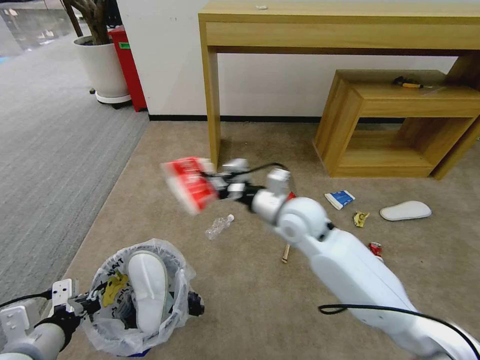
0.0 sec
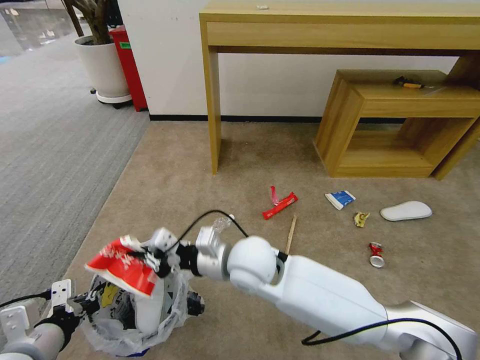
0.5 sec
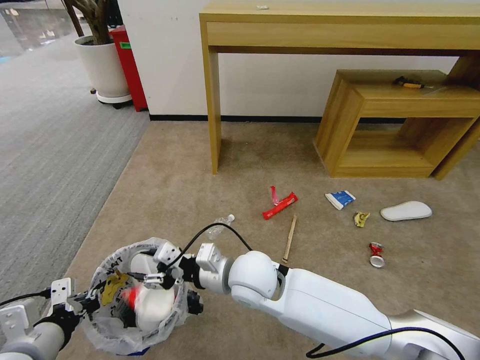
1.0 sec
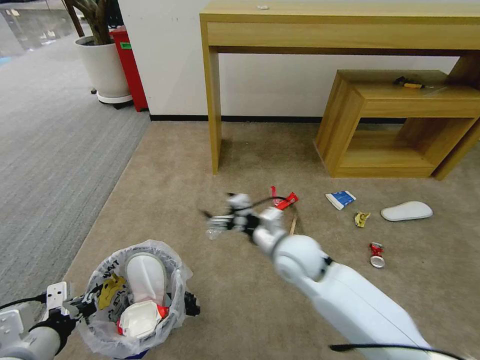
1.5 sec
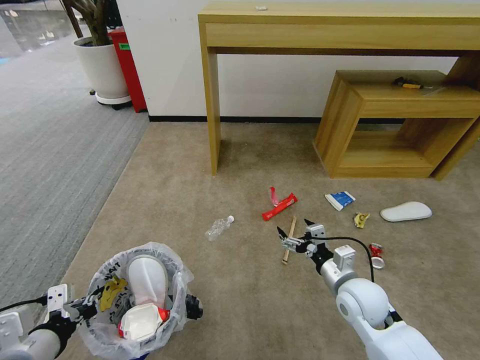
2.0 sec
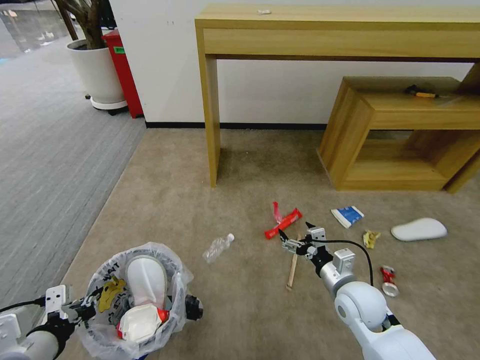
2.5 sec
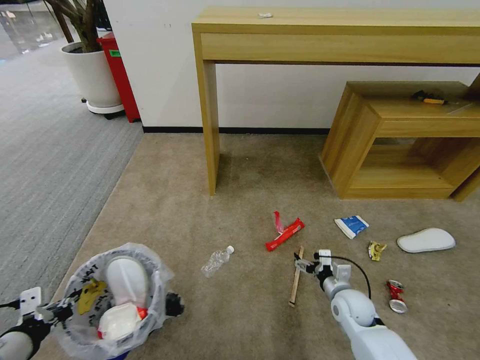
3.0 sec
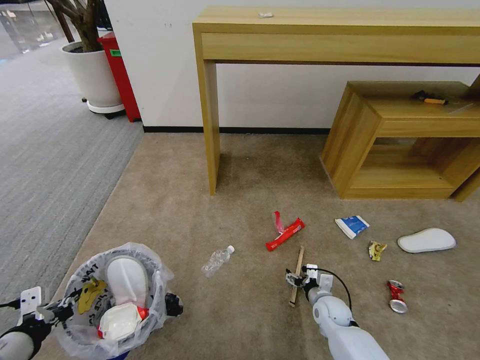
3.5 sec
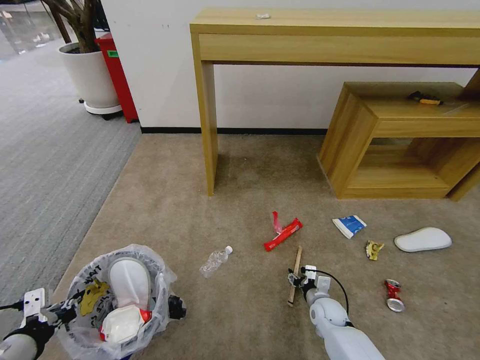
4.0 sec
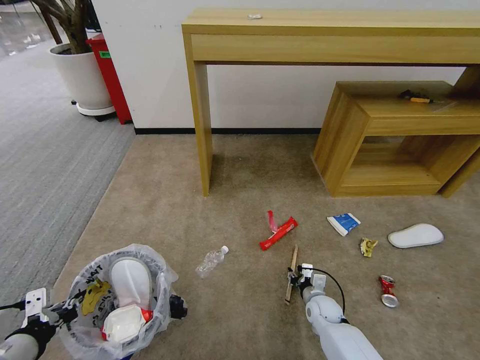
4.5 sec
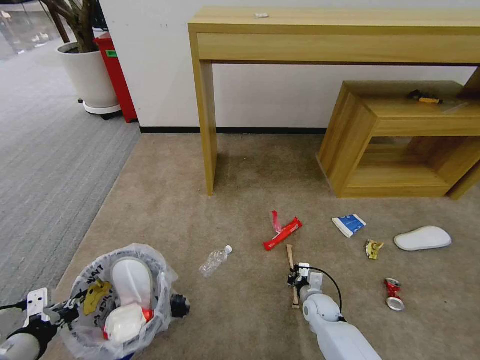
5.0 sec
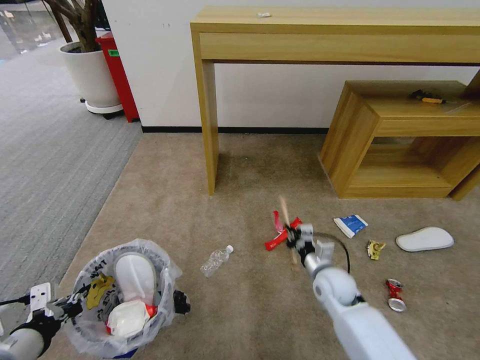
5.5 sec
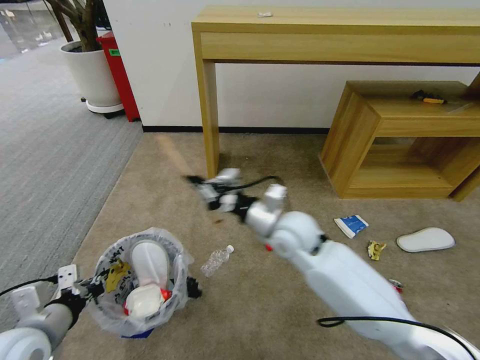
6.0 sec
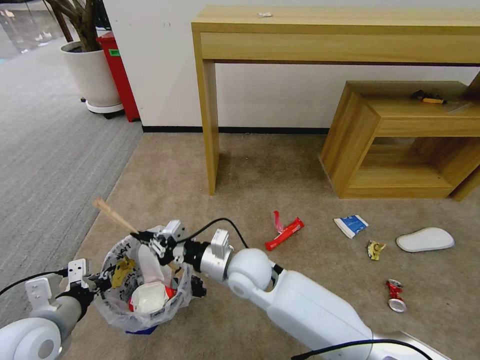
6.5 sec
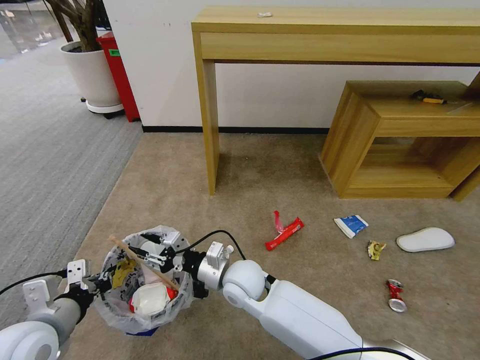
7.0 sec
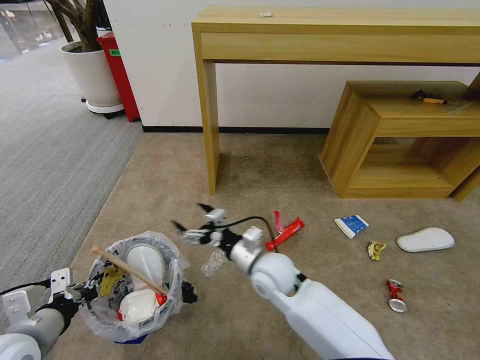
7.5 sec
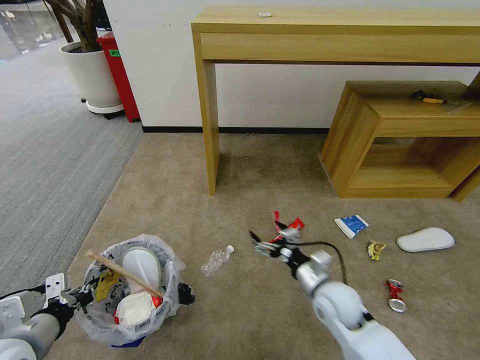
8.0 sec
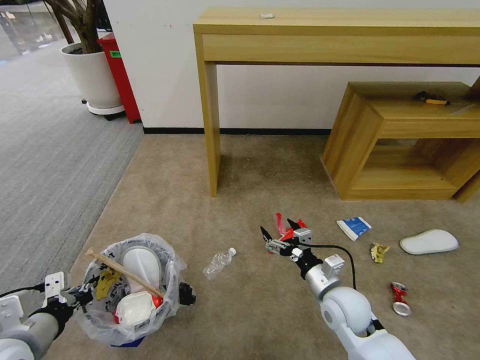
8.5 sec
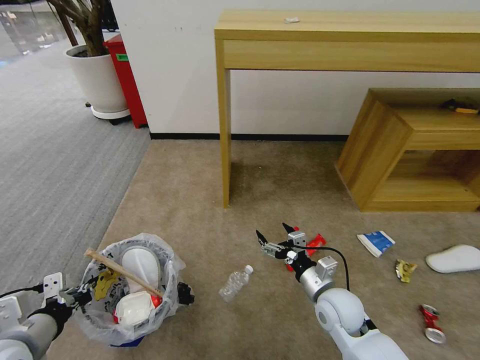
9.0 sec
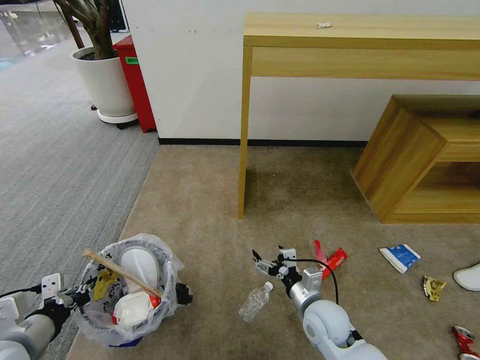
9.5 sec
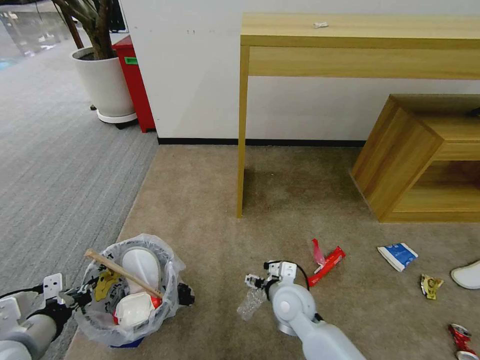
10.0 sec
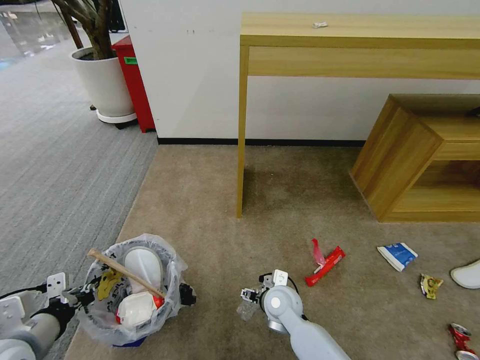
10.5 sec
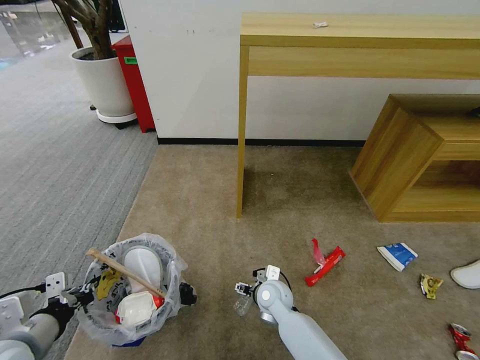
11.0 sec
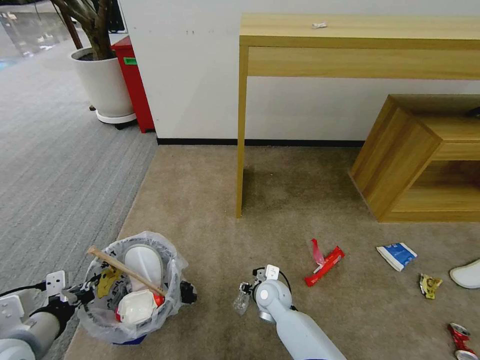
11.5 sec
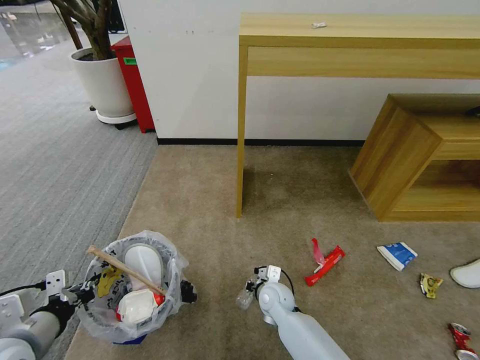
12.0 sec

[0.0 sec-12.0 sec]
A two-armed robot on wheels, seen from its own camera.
Task of the whole recording: Pick up the trash bin and place the garbage on the floor into it.
0.0 sec to 2.0 sec: The right gripper goes about 25 cm to the right, downward and backward, and opens up.
2.0 sec to 4.0 sec: The right gripper is displaced downward by about 20 cm, and closes its fingers.
4.0 sec to 6.0 sec: The left gripper changes place by approximately 5 cm. Meanwhile the right gripper goes some 35 cm upward and to the left, and closes.
6.0 sec to 8.0 sec: The right gripper goes approximately 20 cm downward, backward and to the right, and opens up.
8.0 sec to 10.0 sec: The right gripper travels to the left by some 10 cm.
10.0 sec to 12.0 sec: The right gripper goes approximately 10 cm downward, and closes up.

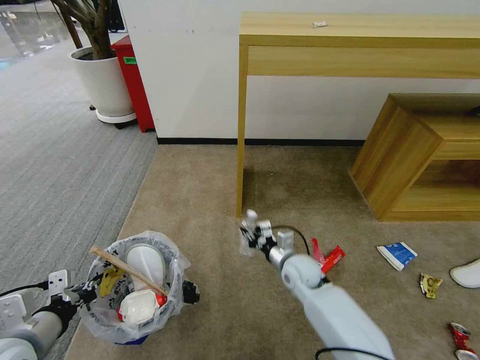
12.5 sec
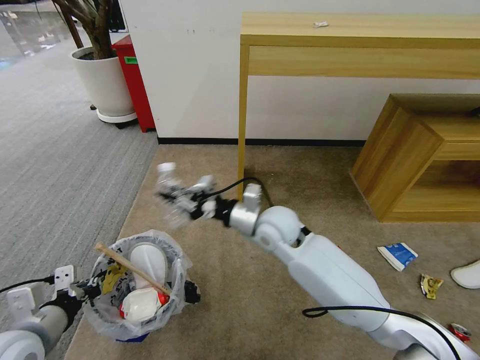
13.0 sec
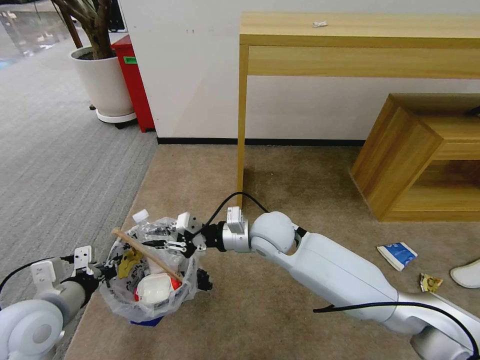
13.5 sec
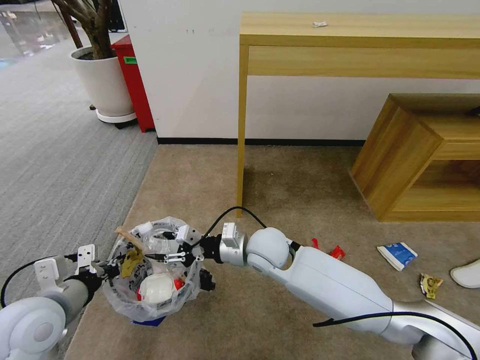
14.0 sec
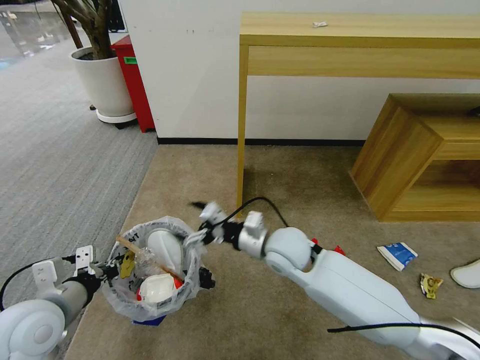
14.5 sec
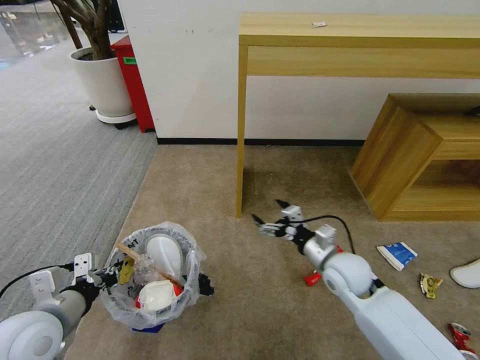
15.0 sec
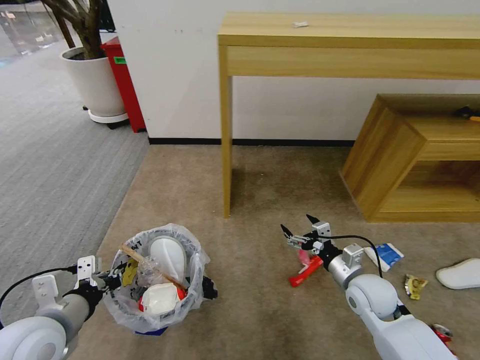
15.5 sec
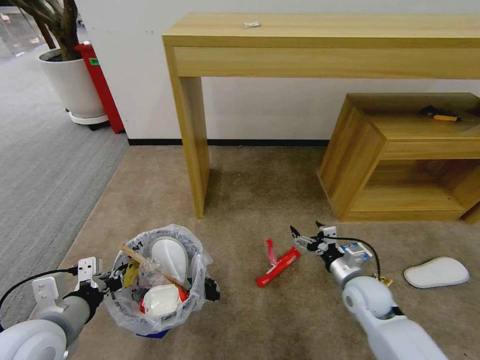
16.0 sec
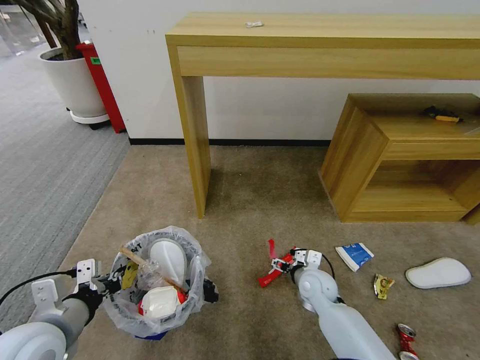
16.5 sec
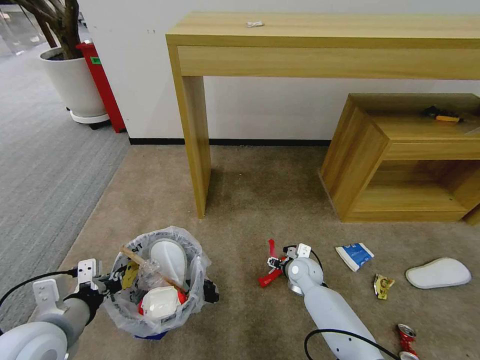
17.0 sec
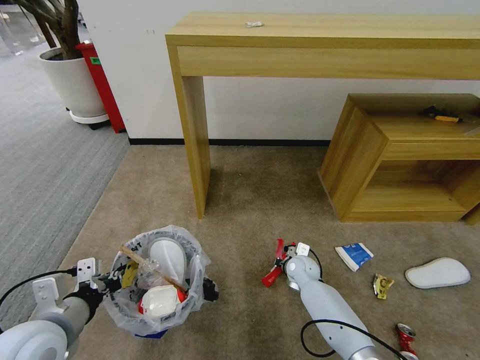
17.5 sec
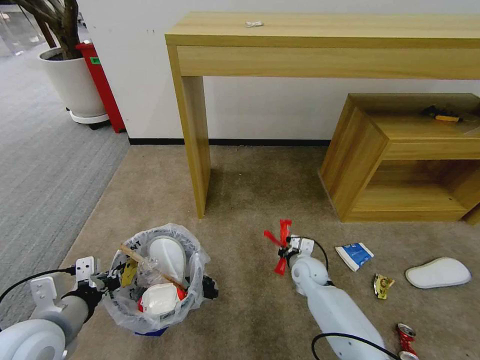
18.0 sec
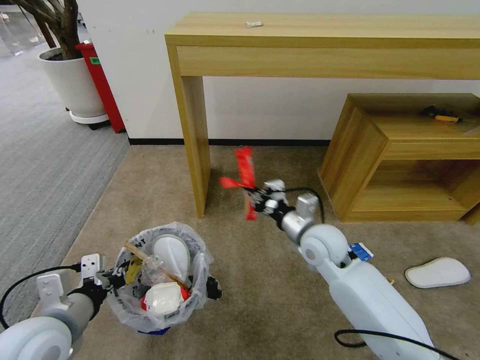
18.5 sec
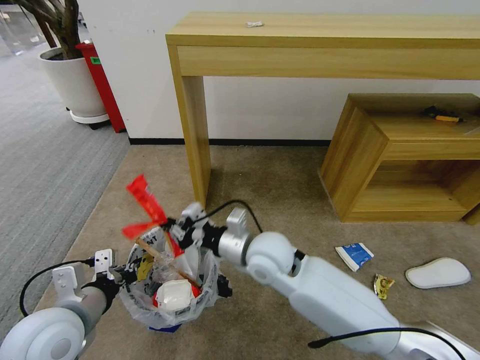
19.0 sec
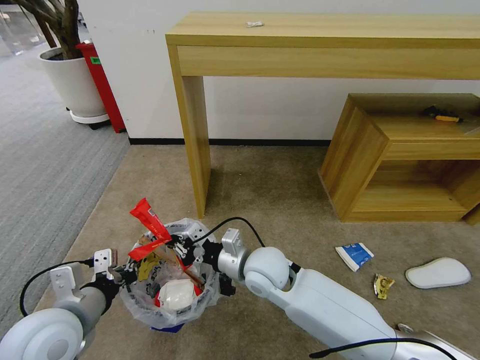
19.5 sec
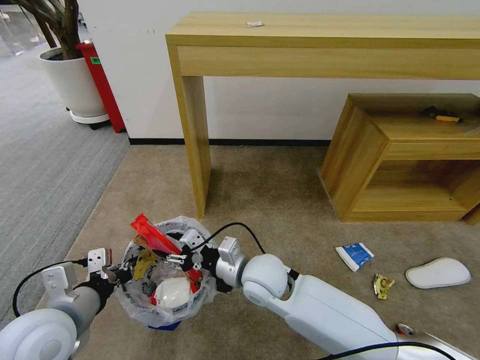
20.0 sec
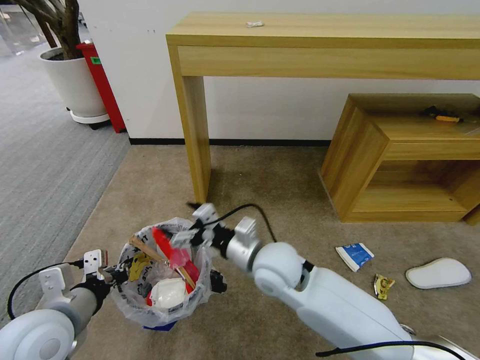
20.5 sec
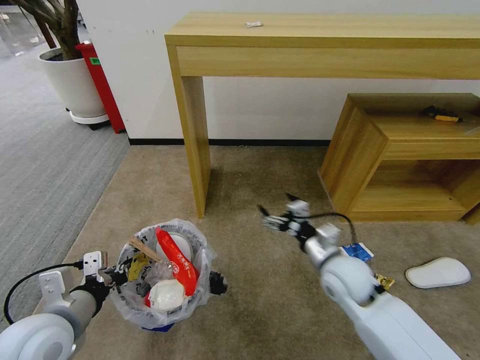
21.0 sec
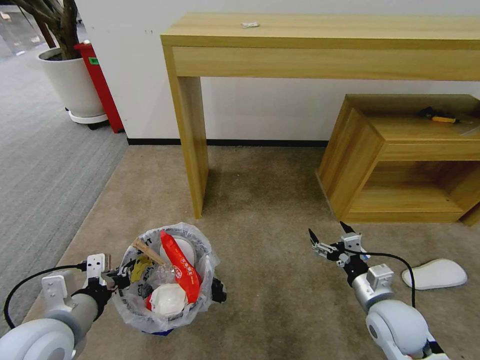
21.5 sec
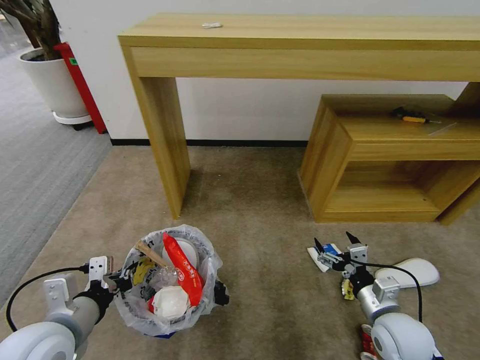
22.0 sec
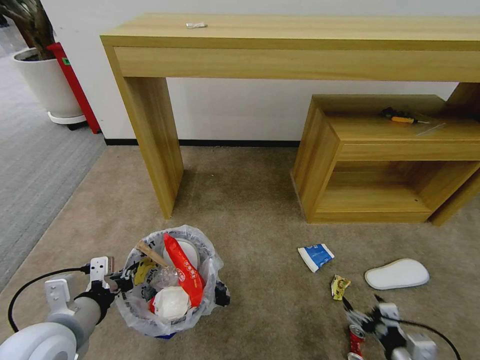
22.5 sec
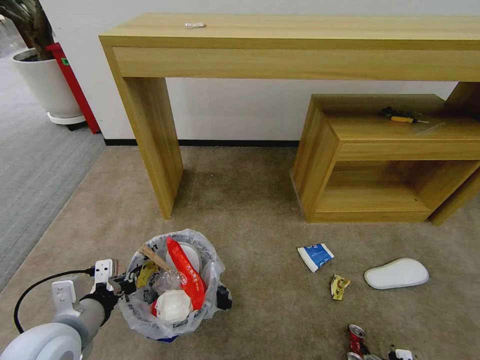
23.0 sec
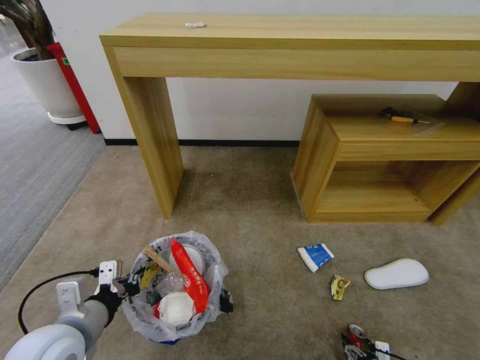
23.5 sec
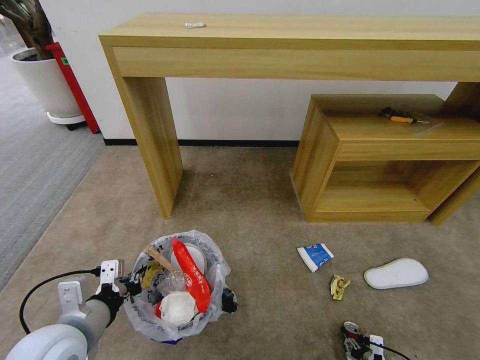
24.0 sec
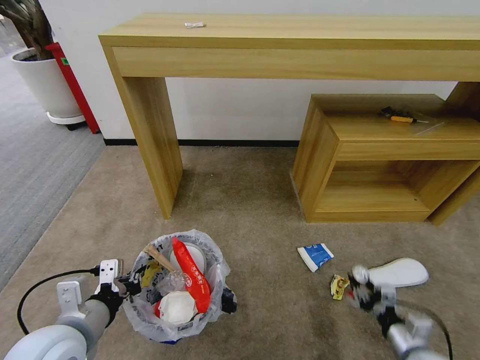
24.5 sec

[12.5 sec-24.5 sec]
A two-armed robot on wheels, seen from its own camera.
Task of the whole recording: Pick up the trash bin and place the garbage on the floor into it.
12.5 sec to 14.5 sec: The right gripper is displaced upward and to the left by some 15 cm, and opens. The left gripper heads forward, covering approximately 5 cm.
14.5 sec to 16.5 sec: The right gripper is displaced downward and to the right by about 20 cm.
16.5 sec to 18.5 sec: The right gripper moves upward, about 15 cm, and closes.
18.5 sec to 20.5 sec: The right gripper moves to the left and backward, approximately 15 cm, and opens up.
20.5 sec to 22.5 sec: The right gripper shifts roughly 40 cm to the right, backward and downward.
22.5 sec to 24.5 sec: The right gripper moves forward, some 5 cm, goes downward and returns, about 15 cm each way, and closes up.

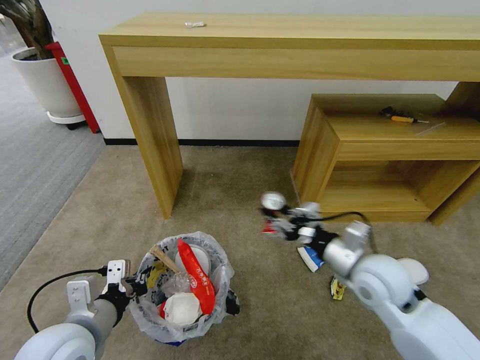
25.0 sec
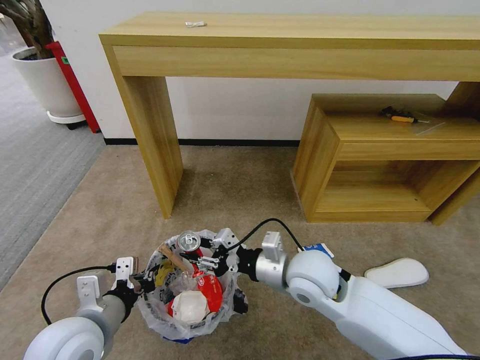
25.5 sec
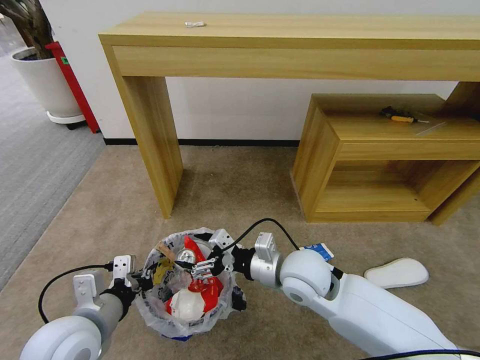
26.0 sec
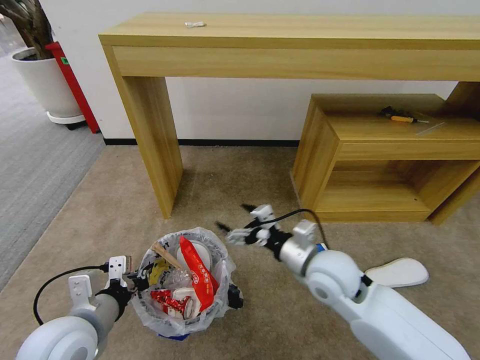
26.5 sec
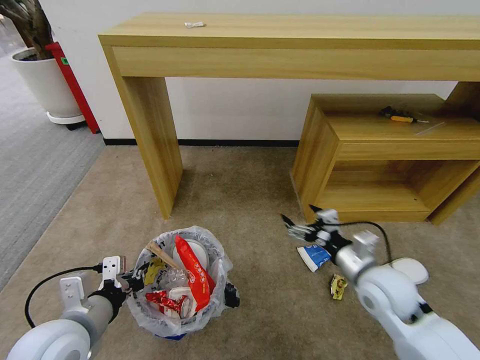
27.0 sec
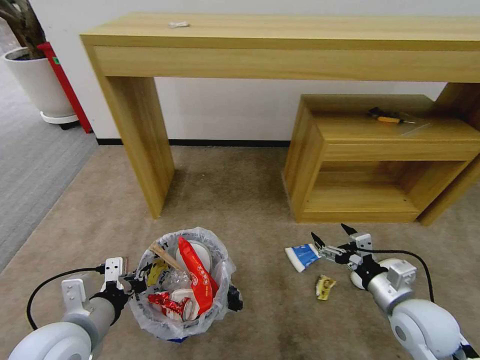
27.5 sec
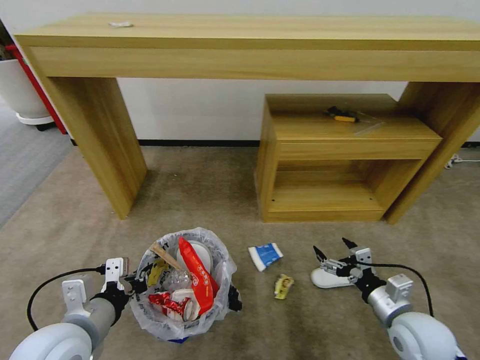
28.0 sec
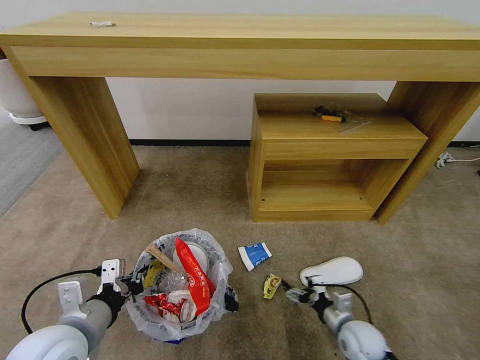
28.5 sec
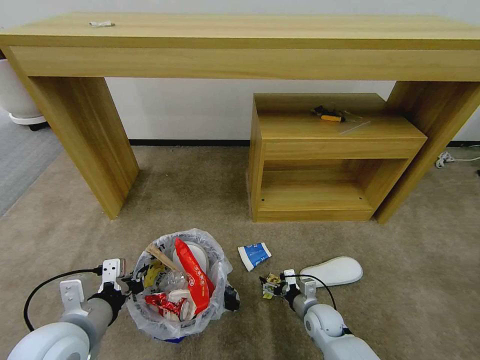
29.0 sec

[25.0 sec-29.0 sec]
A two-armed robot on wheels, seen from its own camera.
Task of the whole recording: Pick up the trash bin and place the garbage on the floor into it.
25.0 sec to 27.0 sec: The right gripper goes to the left and returns, roughly 15 cm each way, and opens.
27.0 sec to 29.0 sec: The right gripper goes roughly 25 cm downward.
